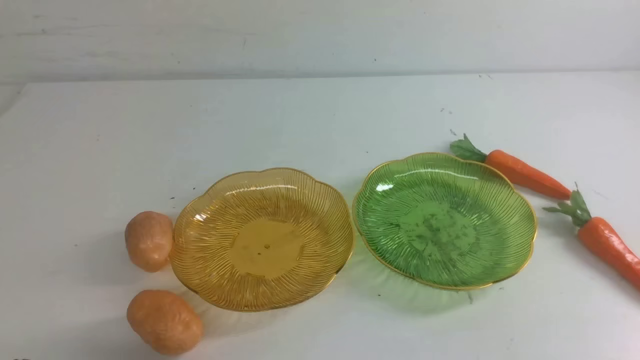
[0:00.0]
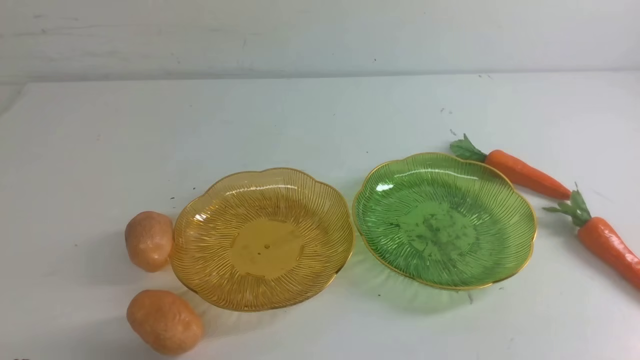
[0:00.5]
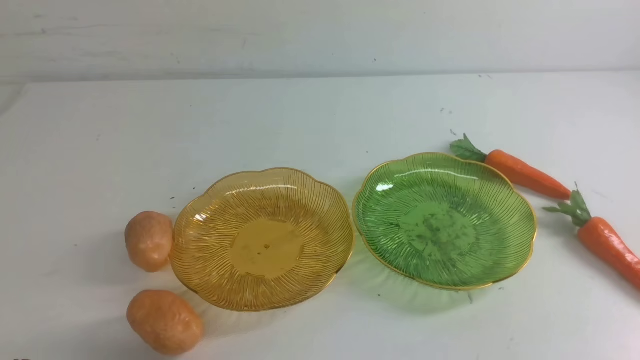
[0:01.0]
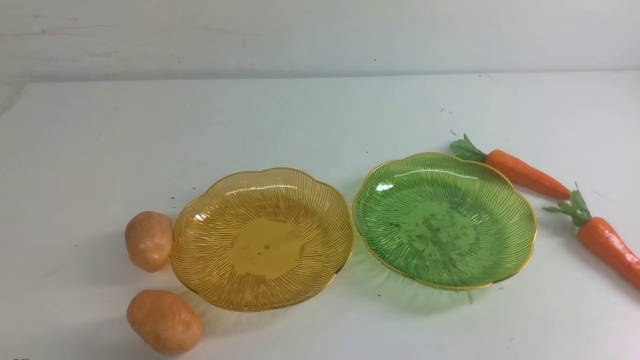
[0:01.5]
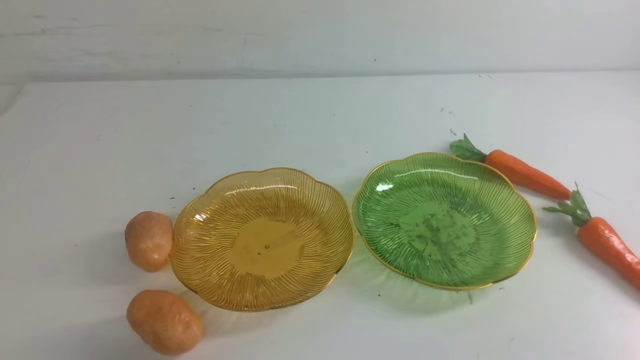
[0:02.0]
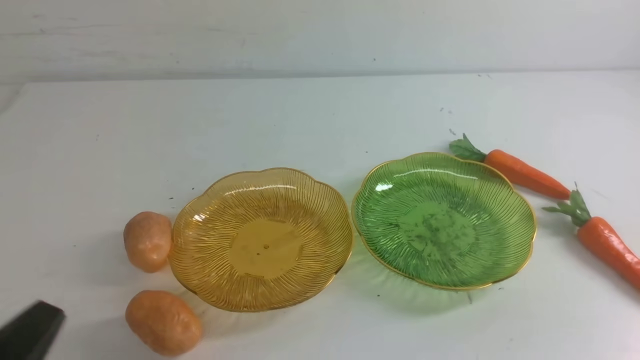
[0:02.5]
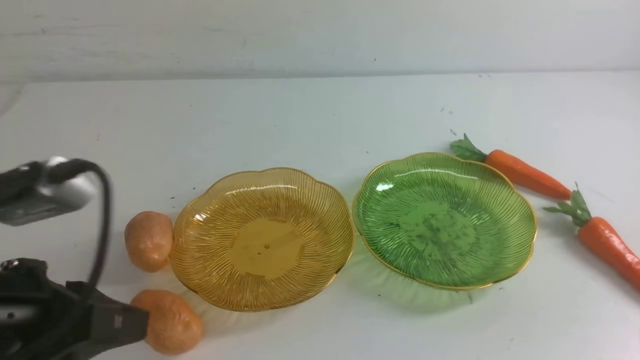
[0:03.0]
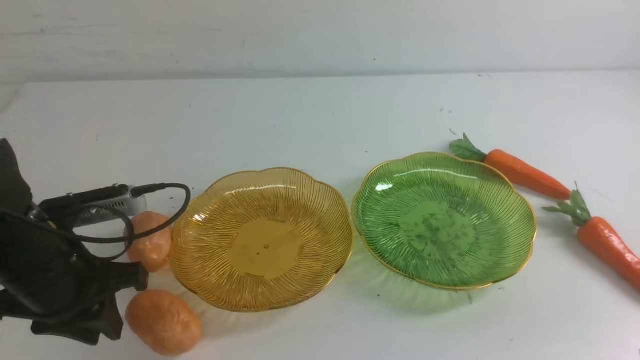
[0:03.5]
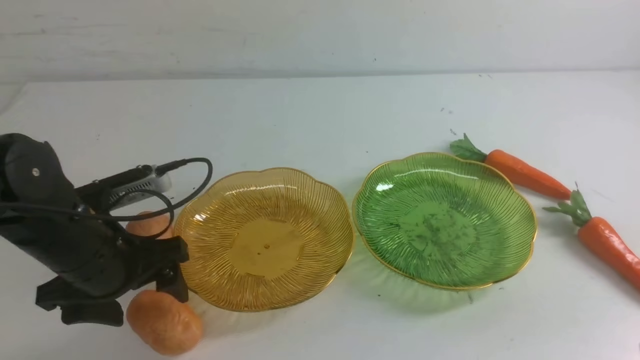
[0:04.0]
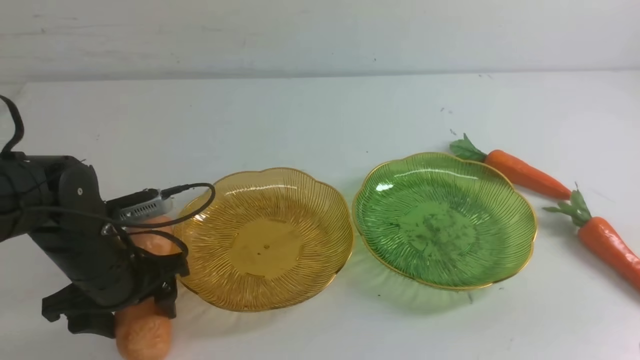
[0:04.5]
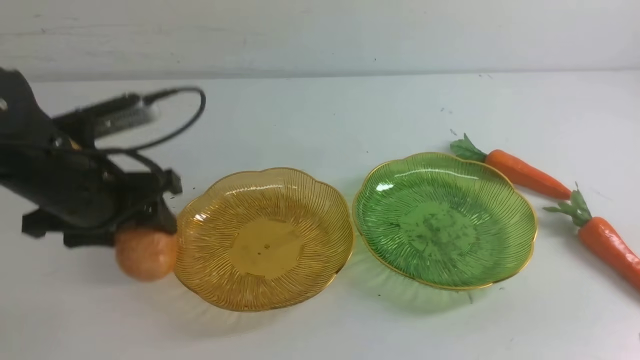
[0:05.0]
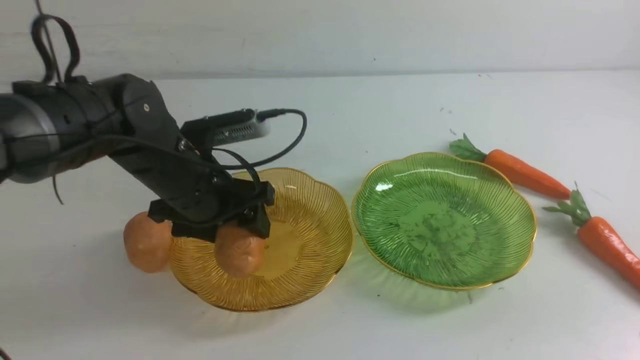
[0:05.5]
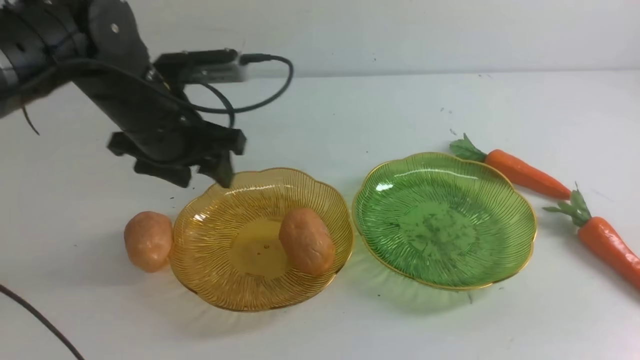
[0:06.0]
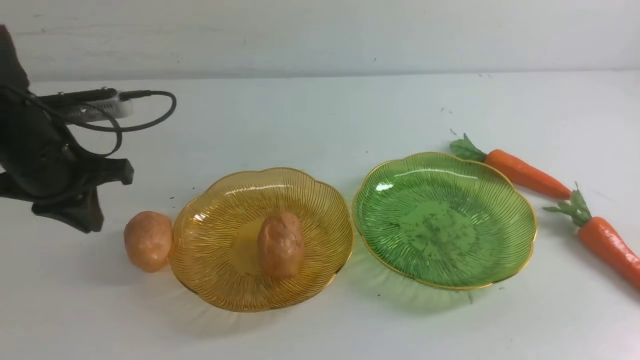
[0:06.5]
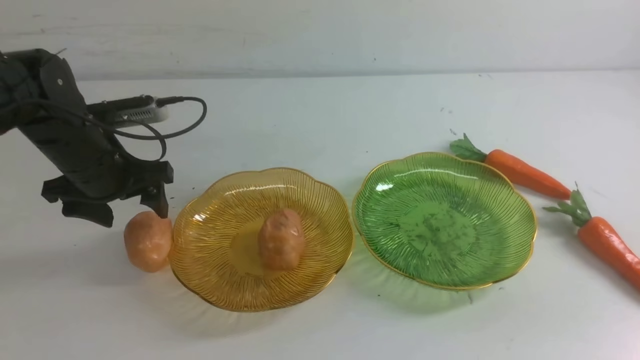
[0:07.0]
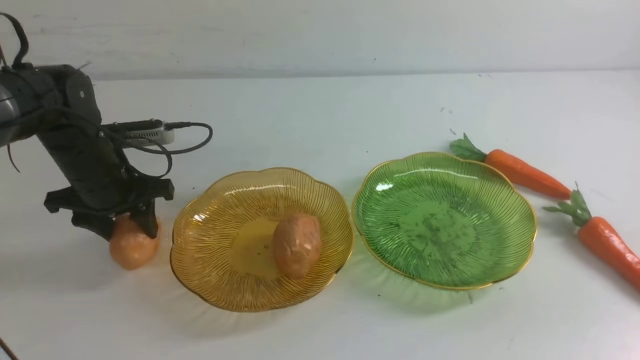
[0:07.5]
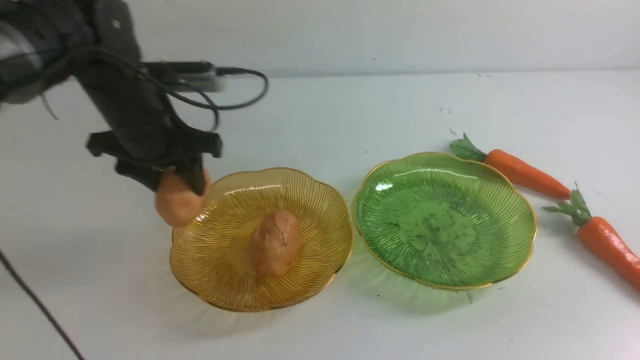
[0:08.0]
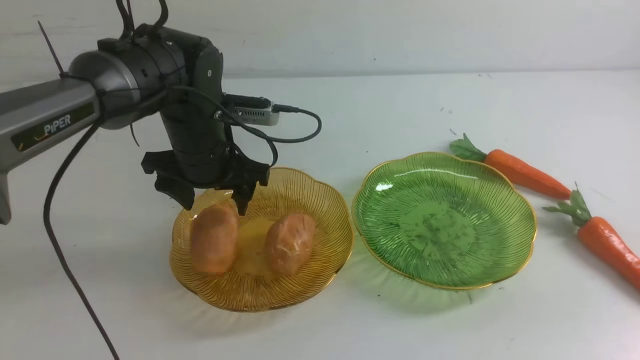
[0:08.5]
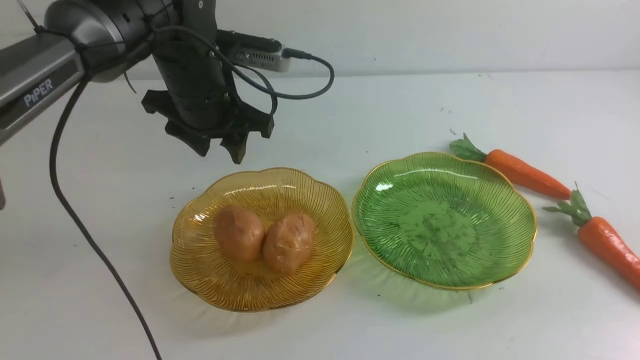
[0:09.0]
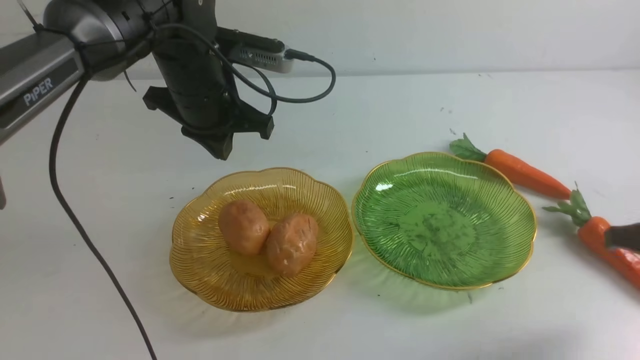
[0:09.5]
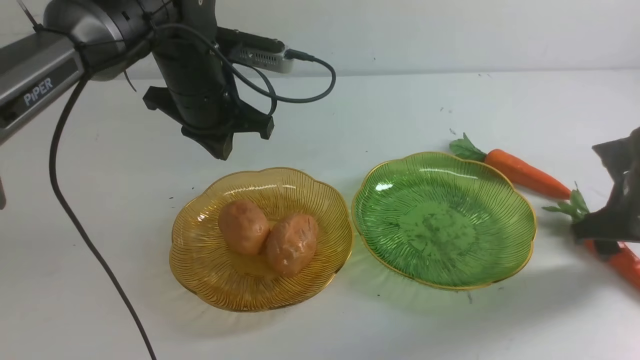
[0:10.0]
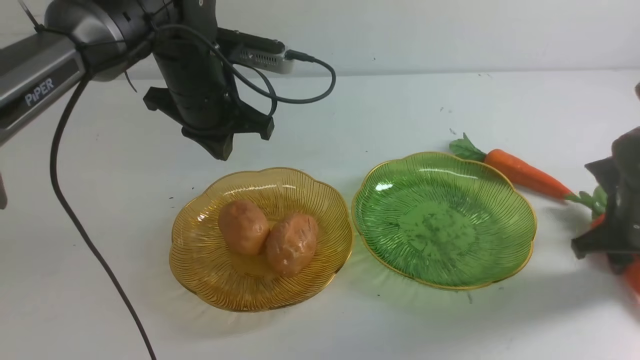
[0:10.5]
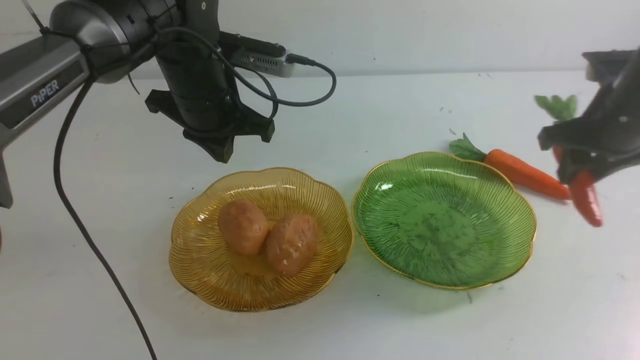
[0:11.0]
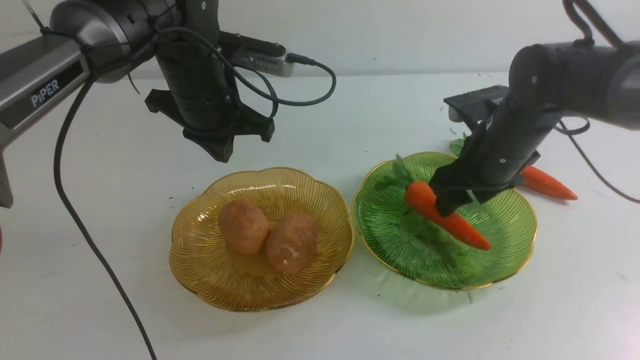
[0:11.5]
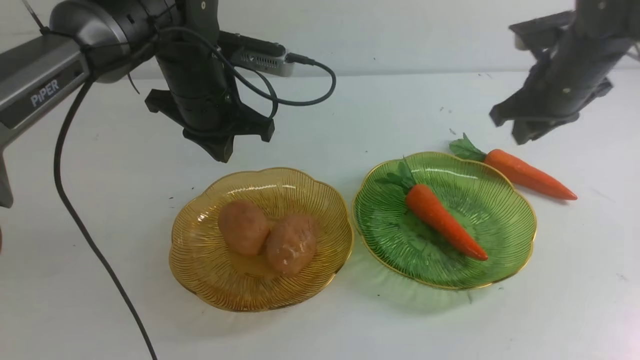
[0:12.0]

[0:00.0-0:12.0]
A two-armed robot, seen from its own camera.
Step, 0:00.0 to 0:05.5: Grab a potato with your left arm and put it on the left plate.
Step, 0:06.0 to 0:08.5: Grab a potato with your left arm and put it on the left plate.
0:02.0 to 0:04.0: The left gripper travels forward by approximately 20 cm, and opens its fingers.
0:04.0 to 0:06.0: The left gripper travels forward and upward by approximately 10 cm, and closes up.
0:06.0 to 0:08.0: The left gripper reaches some 10 cm downward, then returns, and opens.
0:08.0 to 0:10.0: The left gripper heads to the right, covering roughly 10 cm, and closes. The right gripper shifts approximately 25 cm forward and downward, and opens.
0:10.0 to 0:12.0: The right gripper moves to the left, forward and upward, some 15 cm.

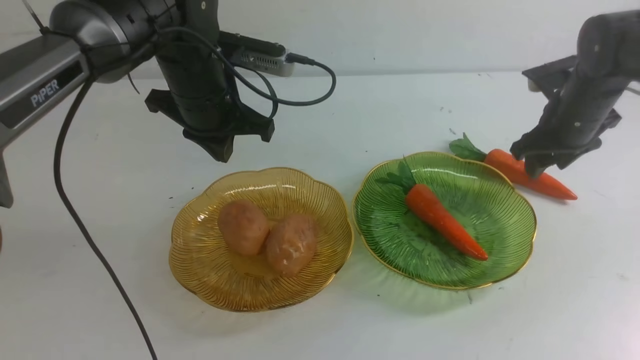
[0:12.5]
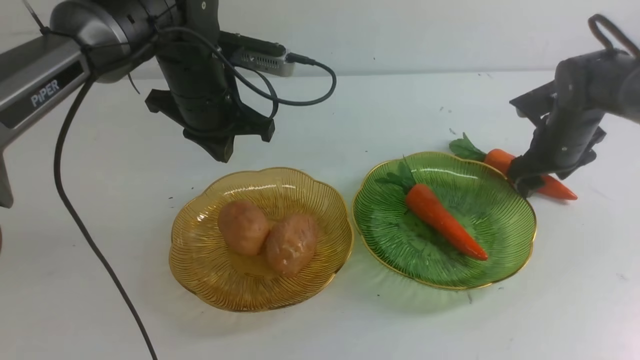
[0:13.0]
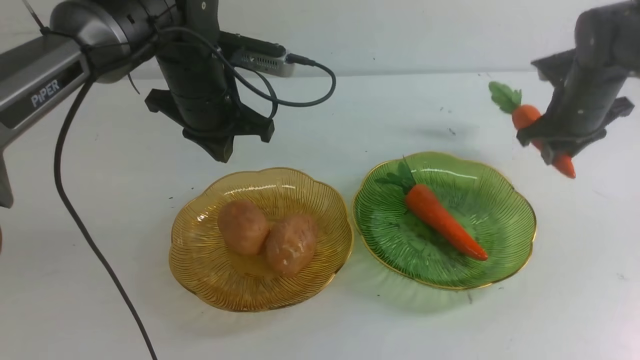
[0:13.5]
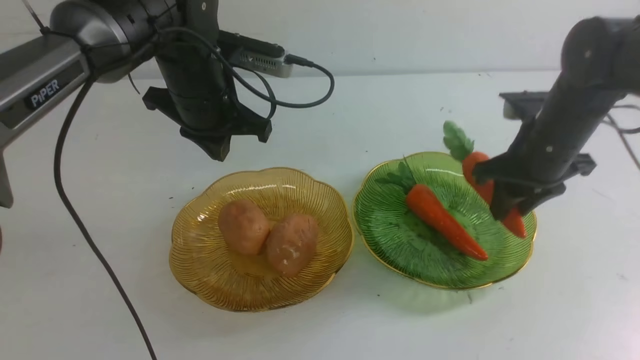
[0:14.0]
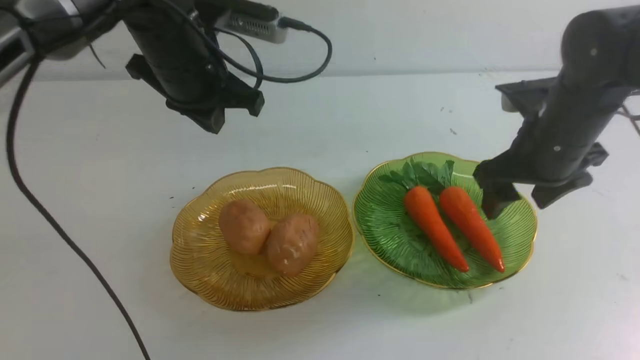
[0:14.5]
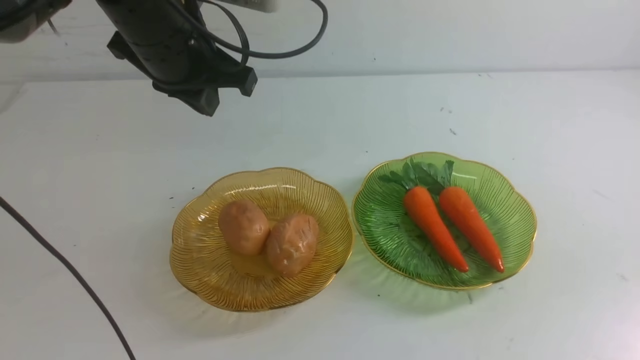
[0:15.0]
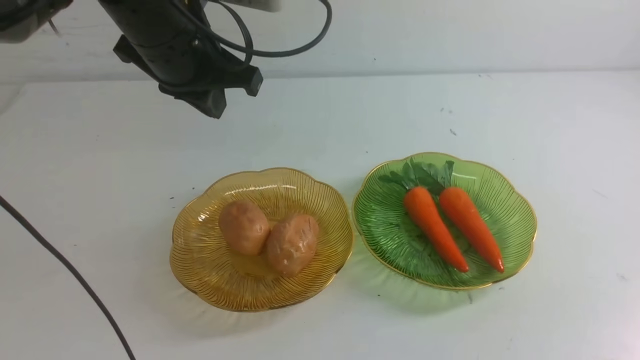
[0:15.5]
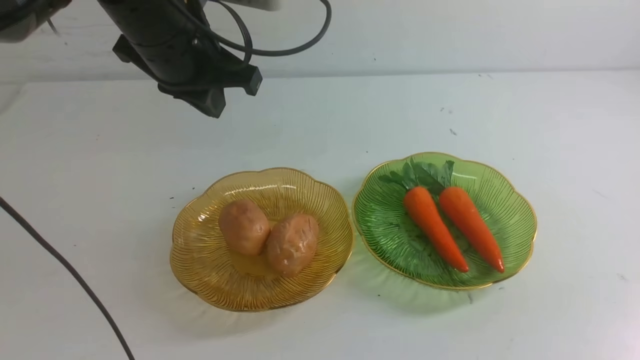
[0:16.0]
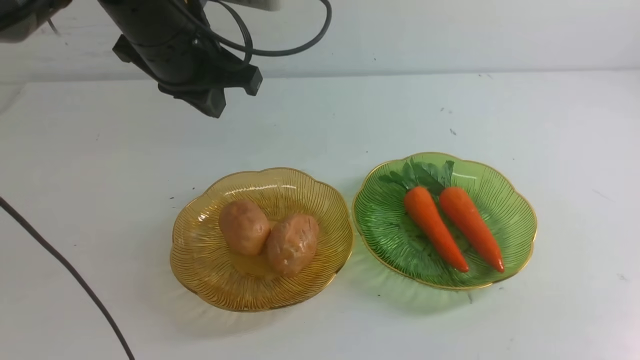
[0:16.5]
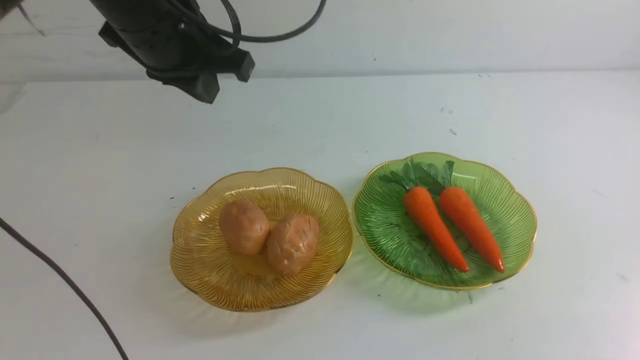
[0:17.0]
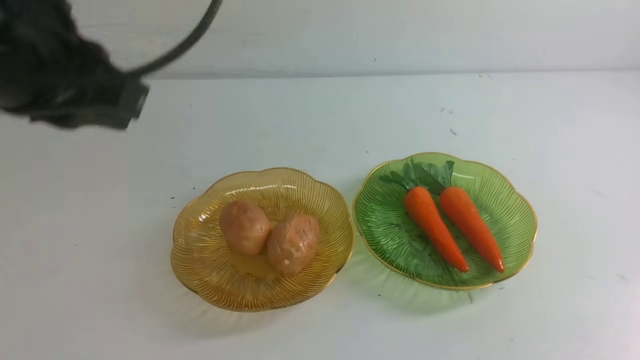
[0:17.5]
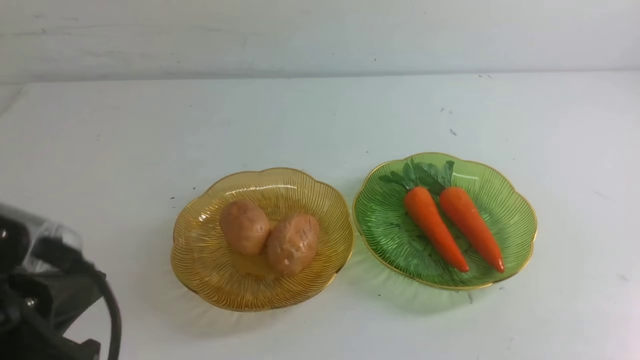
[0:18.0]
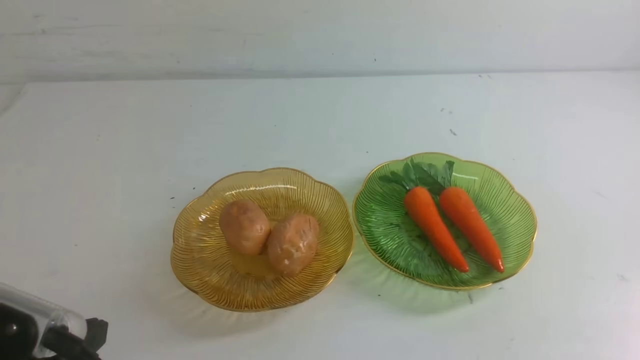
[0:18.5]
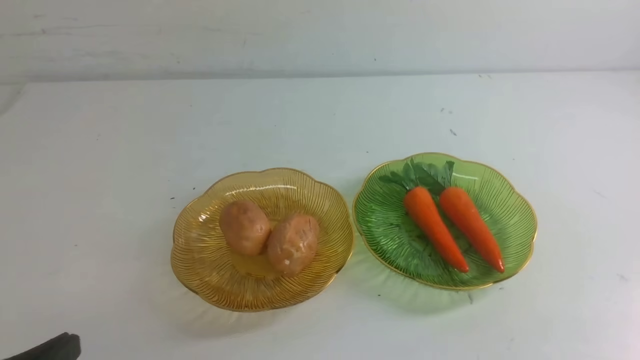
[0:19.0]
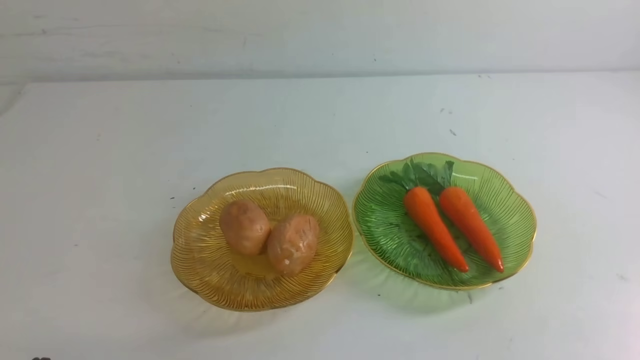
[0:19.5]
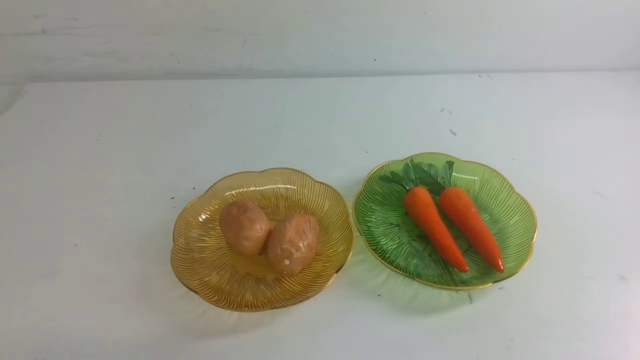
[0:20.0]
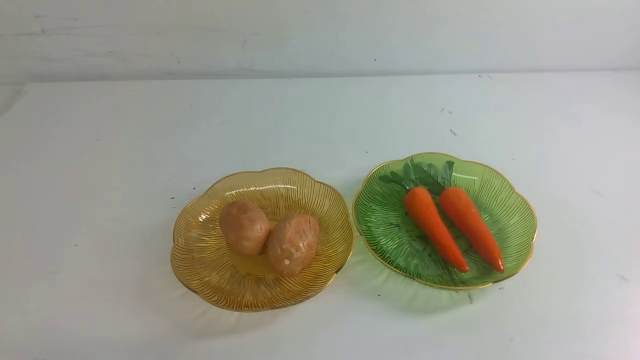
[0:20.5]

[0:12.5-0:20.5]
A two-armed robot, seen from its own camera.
Step, 0:12.5 to 0:14.5: use the right arm to grab a carrot and put it into the right plate.
0:12.5 to 0:14.5: The right gripper moves backward and upward, roughly 15 cm. The left gripper travels upward by some 5 cm.
0:14.5 to 0:16.5: The right gripper heads backward, covering roughly 25 cm, and closes up.
0:16.5 to 0:18.5: The left gripper goes some 30 cm backward. Meanwhile the right gripper goes roughly 5 cm downward.
0:18.5 to 0:20.5: The left gripper travels downward by roughly 10 cm.
